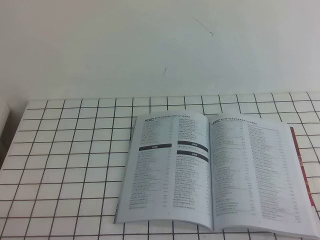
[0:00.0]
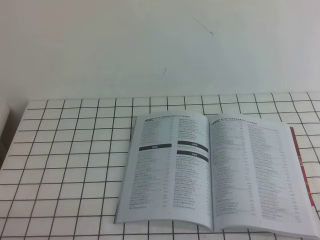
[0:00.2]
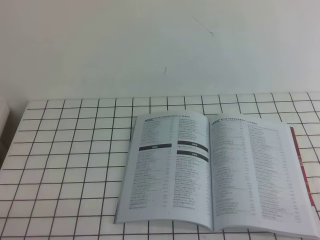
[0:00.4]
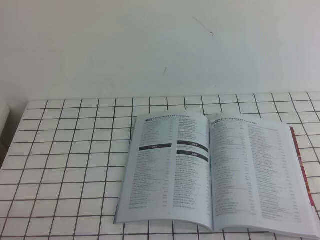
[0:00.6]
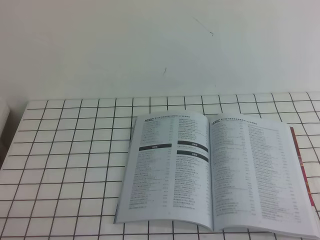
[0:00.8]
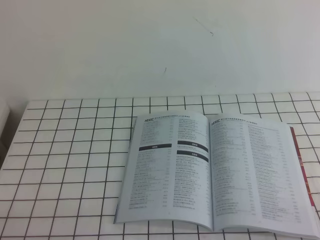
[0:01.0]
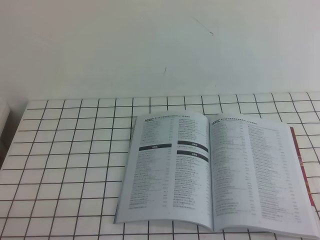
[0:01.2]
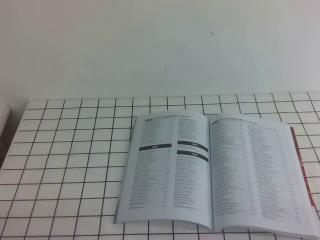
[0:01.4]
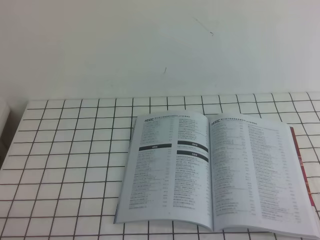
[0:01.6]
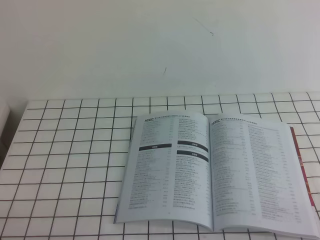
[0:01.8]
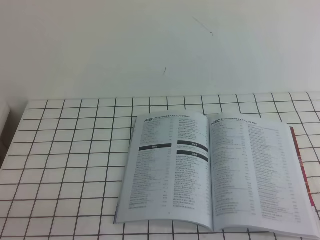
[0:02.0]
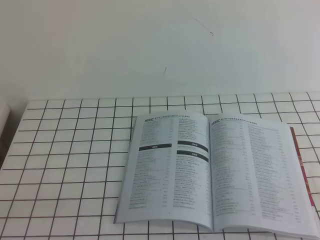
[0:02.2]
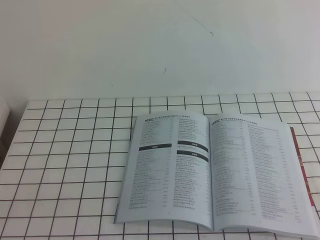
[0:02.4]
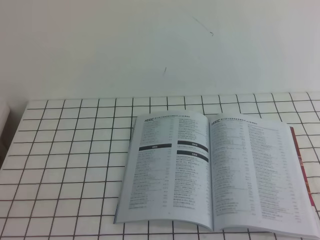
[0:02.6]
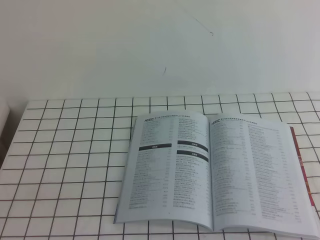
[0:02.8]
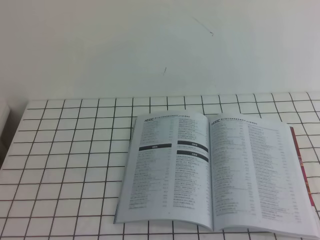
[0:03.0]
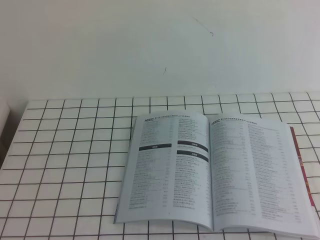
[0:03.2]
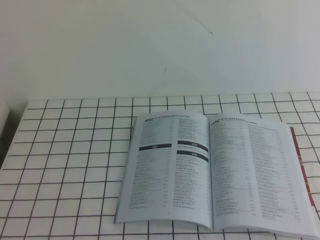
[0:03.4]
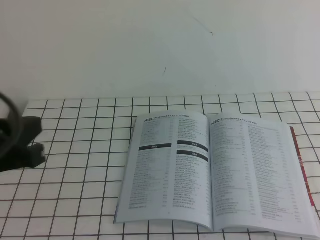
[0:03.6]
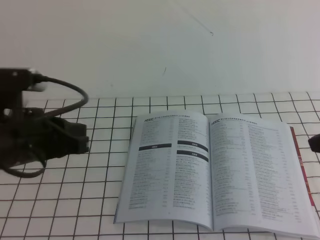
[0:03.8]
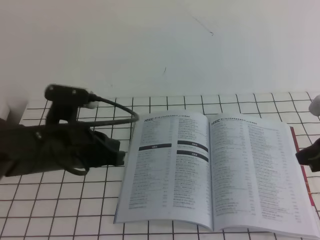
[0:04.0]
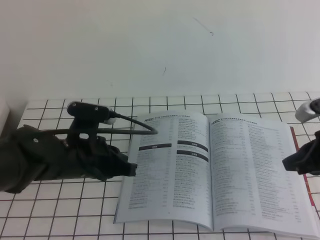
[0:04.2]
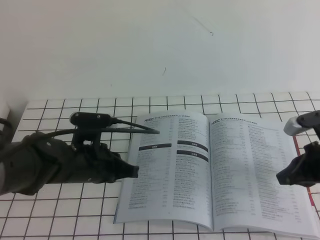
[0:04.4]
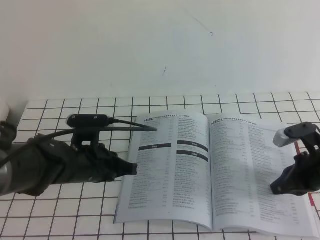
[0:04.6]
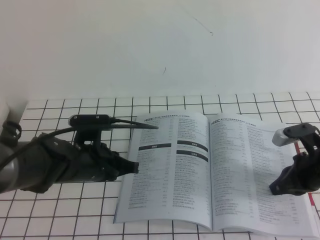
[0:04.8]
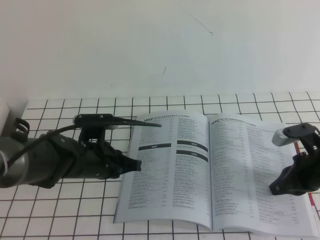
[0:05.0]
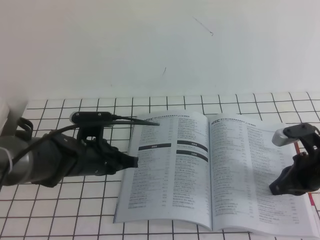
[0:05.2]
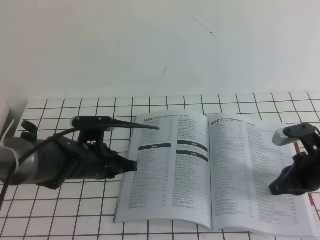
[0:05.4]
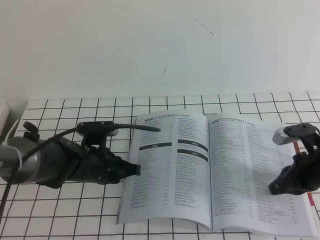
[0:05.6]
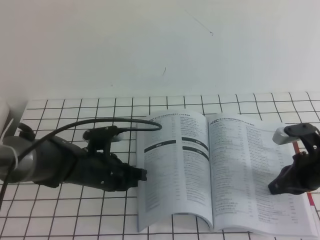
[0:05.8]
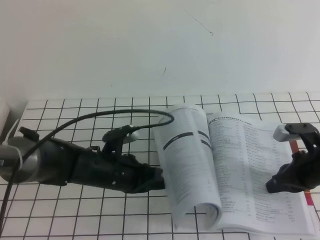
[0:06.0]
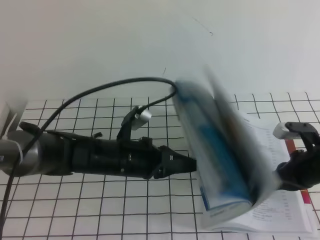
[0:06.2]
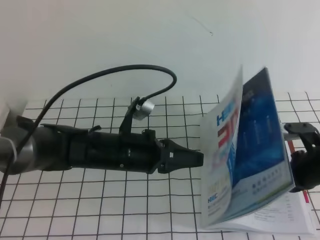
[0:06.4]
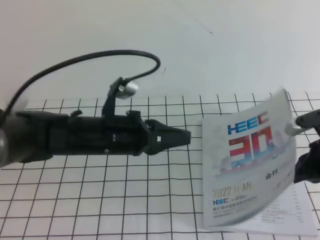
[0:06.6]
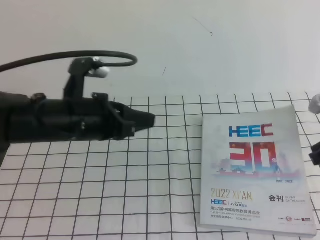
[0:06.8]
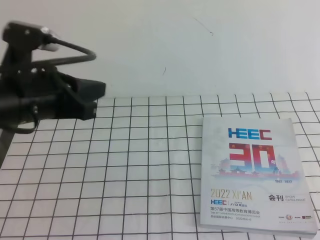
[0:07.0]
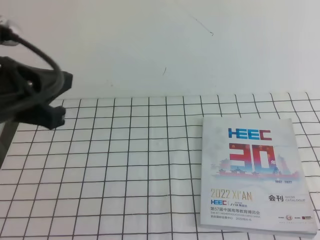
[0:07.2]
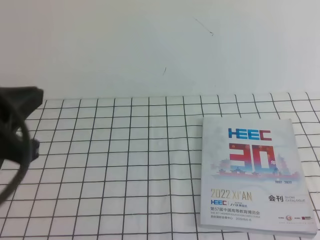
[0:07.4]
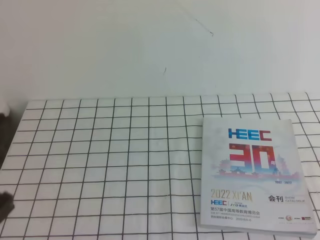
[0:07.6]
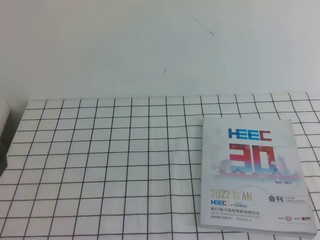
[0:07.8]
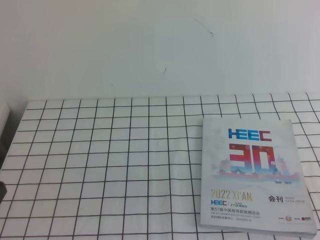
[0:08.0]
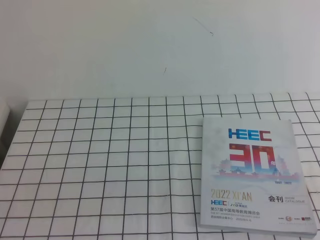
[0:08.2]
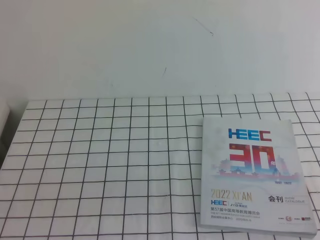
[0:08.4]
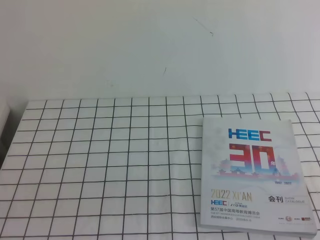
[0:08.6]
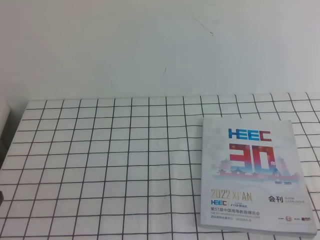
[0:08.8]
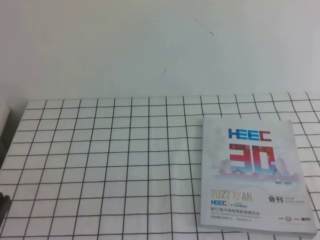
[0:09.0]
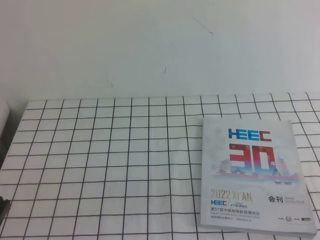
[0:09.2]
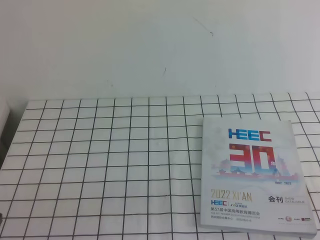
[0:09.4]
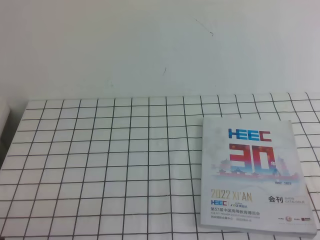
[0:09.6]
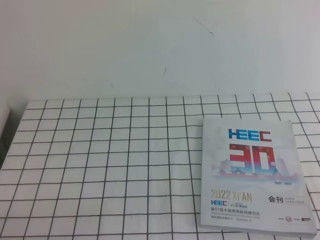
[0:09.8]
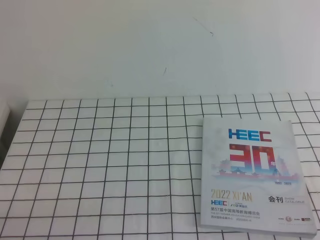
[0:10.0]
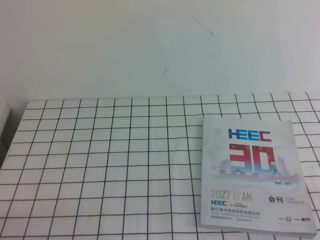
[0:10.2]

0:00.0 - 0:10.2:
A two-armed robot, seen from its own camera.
Task of the whole recording: on the white tablecloth, hold the book with one hand and close it with the other.
0:00.0 - 0:01.4: Both grippers stay about where they are.
0:03.0 - 0:04.4: The left gripper shifts roughly 30 cm forward, to the right and downward. Meanwhile the right gripper moves forward and downward, about 30 cm.
0:04.4 - 0:05.8: The left gripper goes roughly 5 cm downward.
0:05.8 - 0:07.2: Both grippers travel together upward and backward, some 25 cm.
0:07.2 - 0:08.8: The right gripper is displaced backward by approximately 15 cm; the left gripper shifts roughly 20 cm backward and downward.
